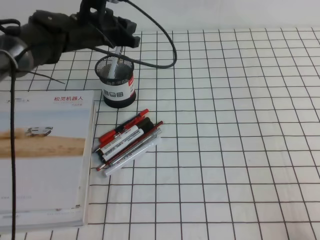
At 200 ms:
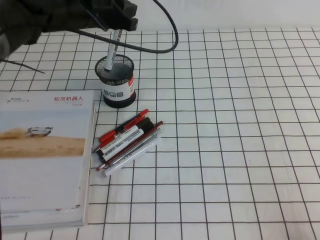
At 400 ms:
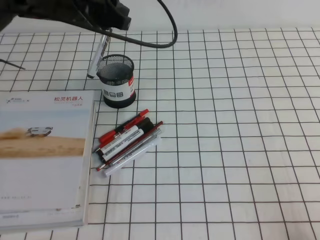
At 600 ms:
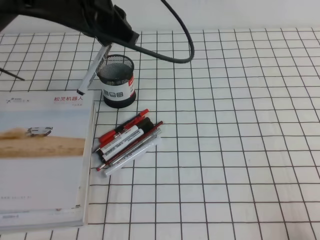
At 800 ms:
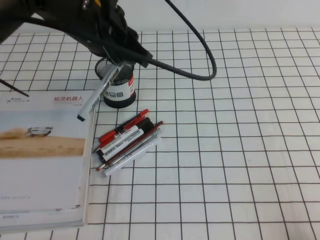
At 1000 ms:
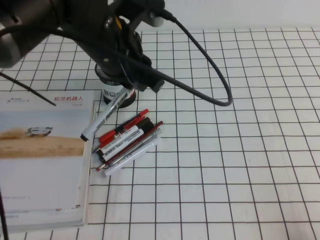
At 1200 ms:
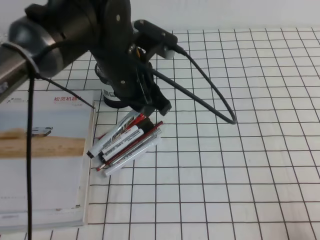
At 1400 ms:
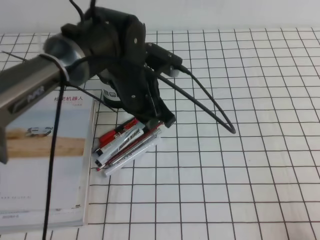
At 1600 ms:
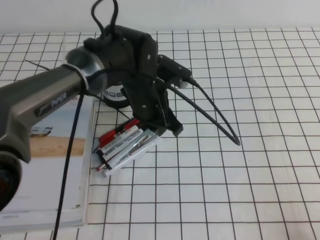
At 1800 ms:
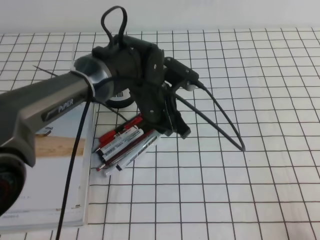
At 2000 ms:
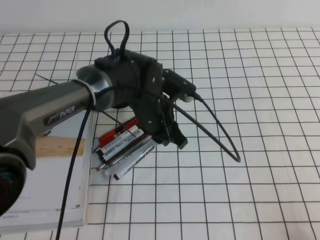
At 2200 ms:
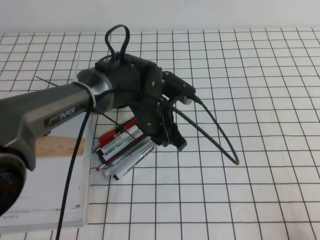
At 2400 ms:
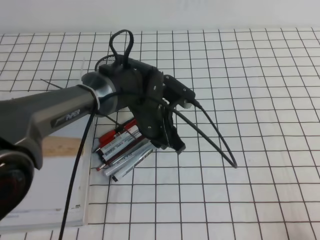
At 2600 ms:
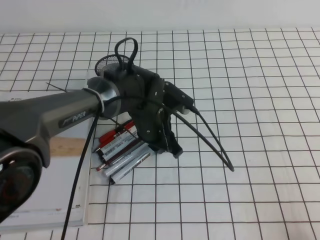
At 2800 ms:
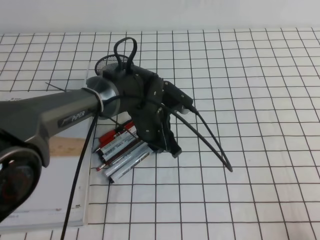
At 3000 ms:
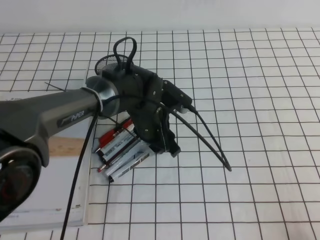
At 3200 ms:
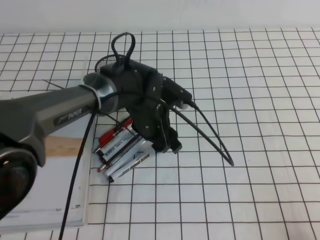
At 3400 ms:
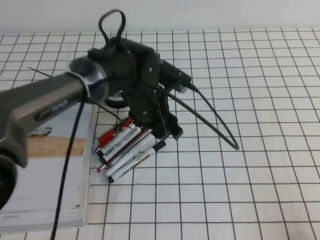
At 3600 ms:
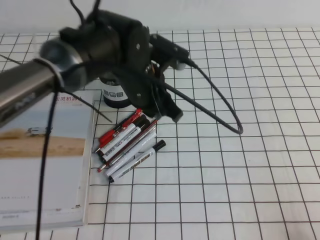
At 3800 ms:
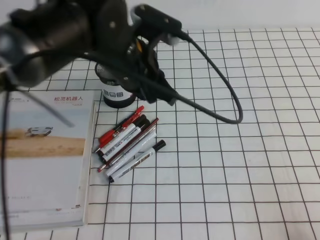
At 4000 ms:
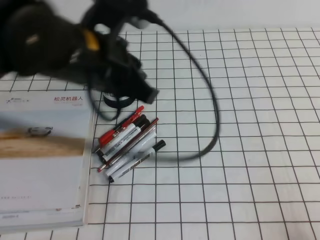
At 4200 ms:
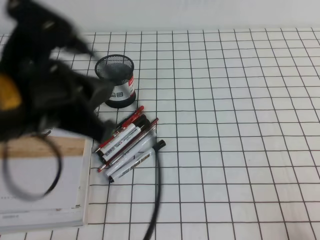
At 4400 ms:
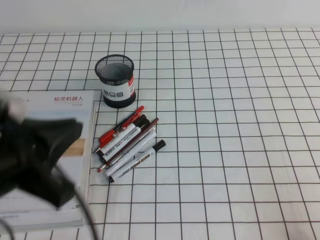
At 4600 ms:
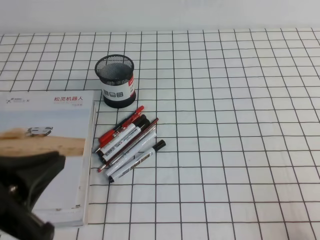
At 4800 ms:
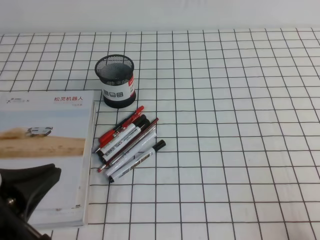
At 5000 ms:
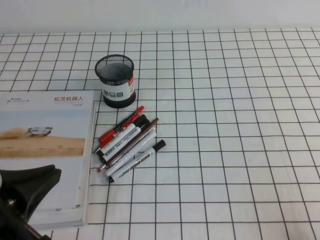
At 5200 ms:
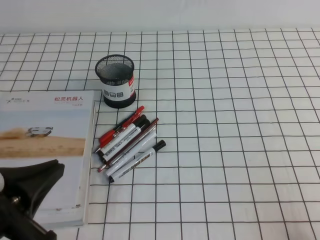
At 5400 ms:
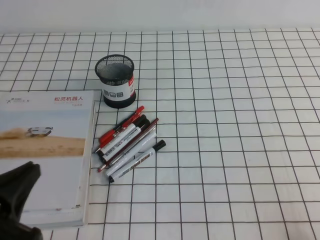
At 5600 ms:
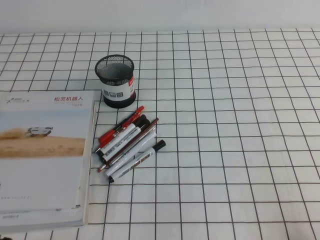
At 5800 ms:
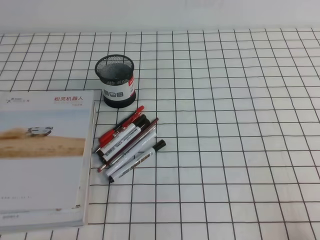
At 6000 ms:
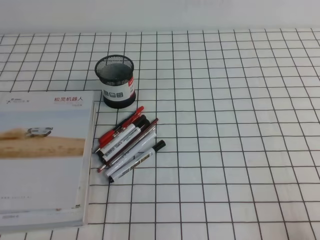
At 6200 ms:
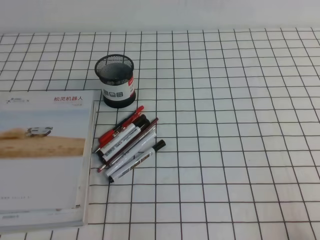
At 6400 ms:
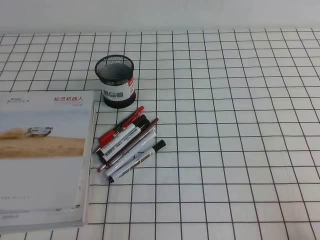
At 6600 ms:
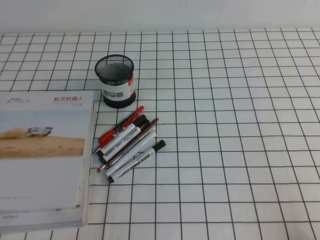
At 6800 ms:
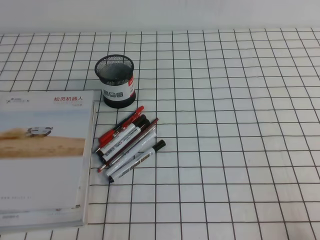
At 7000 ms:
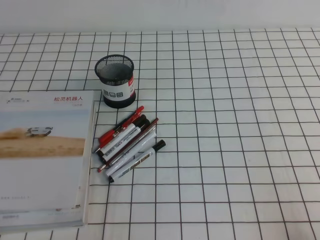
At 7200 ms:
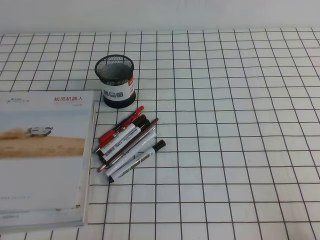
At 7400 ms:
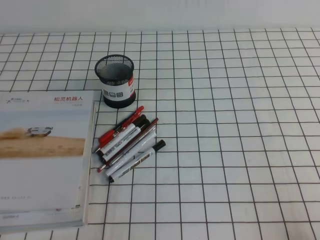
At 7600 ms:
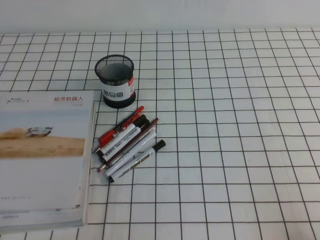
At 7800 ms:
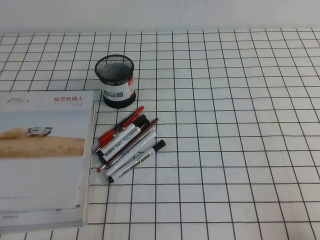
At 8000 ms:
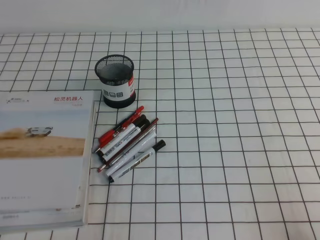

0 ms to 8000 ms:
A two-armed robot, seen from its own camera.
Step, 0 ms to 8000 ms: Pick up the pen from the pen holder.
0 ms to 1600 ms: The left gripper heads backward and to the right, covering some 15 cm.
1600 ms to 3200 ms: The left gripper goes roughly 5 cm downward, and opens its fingers.
3200 ms to 4800 ms: The left gripper goes some 35 cm backward, to the left and upward, and closes.
4800 ms to 6400 ms: The left gripper shifts roughly 15 cm downward and to the left.

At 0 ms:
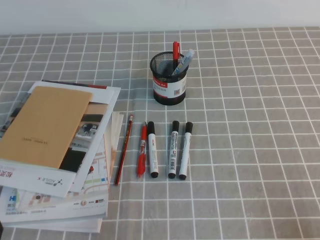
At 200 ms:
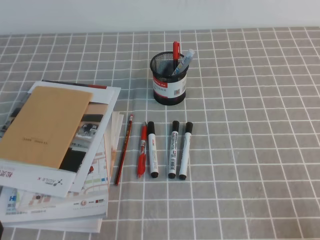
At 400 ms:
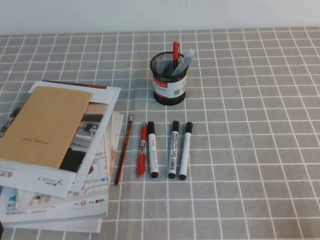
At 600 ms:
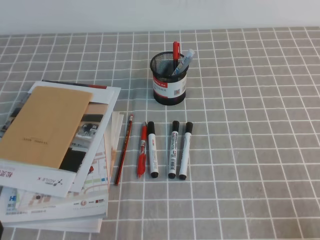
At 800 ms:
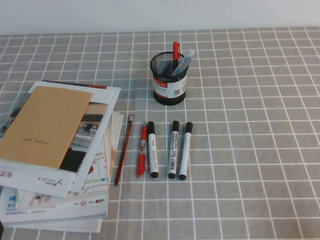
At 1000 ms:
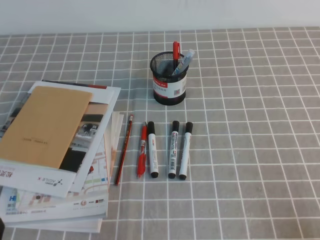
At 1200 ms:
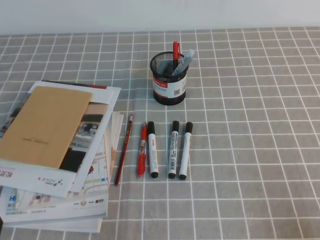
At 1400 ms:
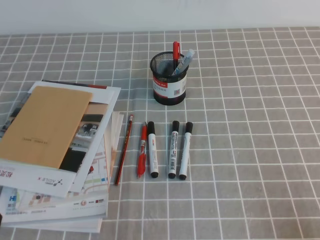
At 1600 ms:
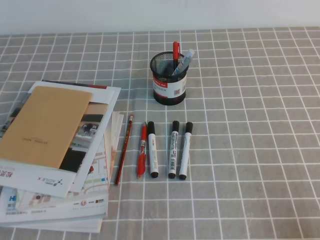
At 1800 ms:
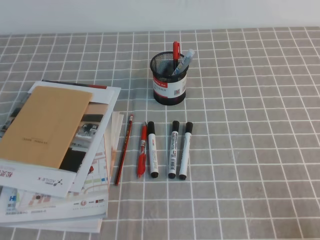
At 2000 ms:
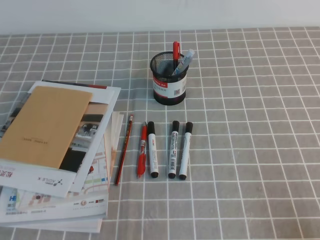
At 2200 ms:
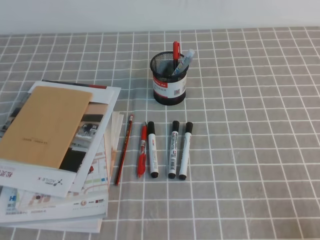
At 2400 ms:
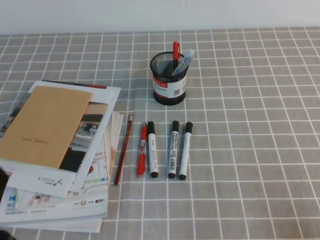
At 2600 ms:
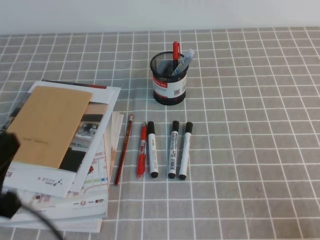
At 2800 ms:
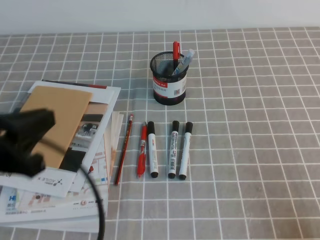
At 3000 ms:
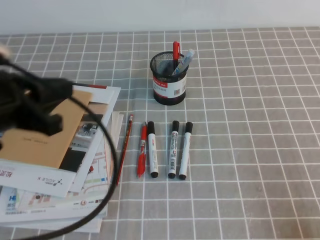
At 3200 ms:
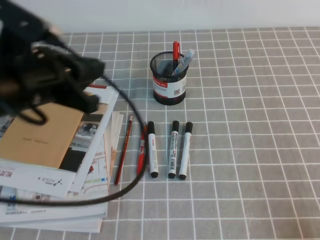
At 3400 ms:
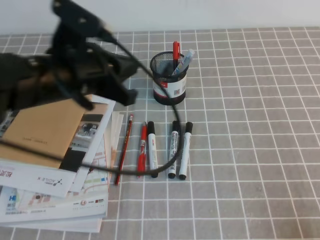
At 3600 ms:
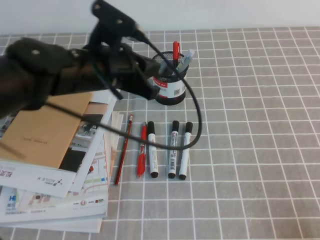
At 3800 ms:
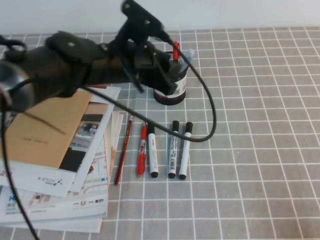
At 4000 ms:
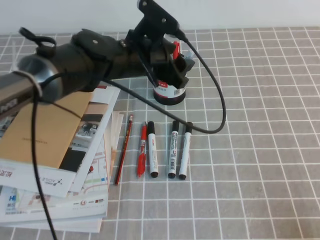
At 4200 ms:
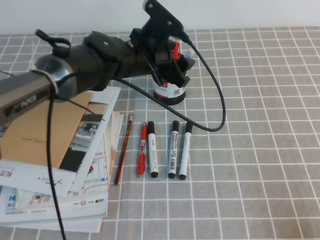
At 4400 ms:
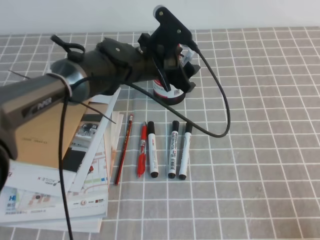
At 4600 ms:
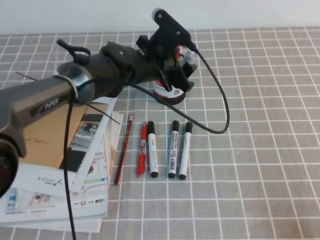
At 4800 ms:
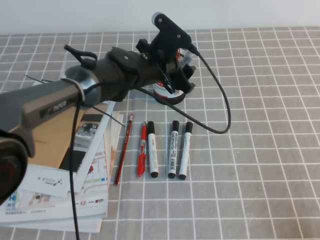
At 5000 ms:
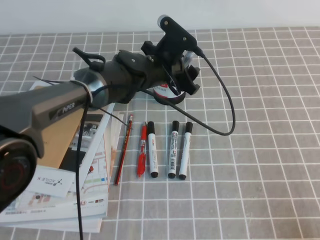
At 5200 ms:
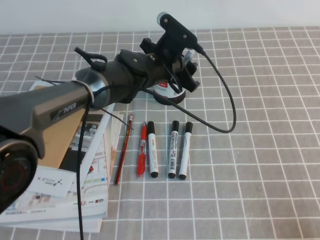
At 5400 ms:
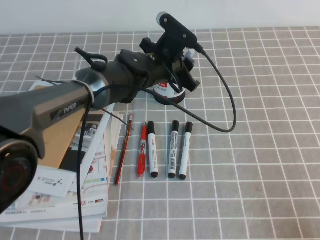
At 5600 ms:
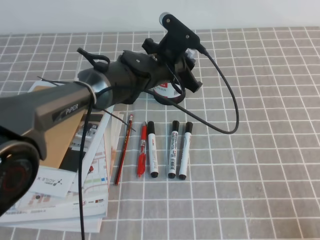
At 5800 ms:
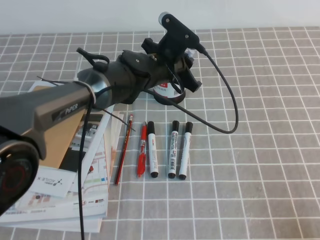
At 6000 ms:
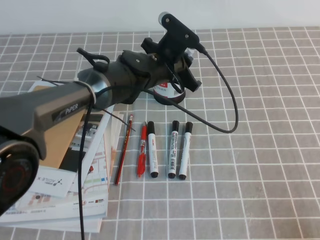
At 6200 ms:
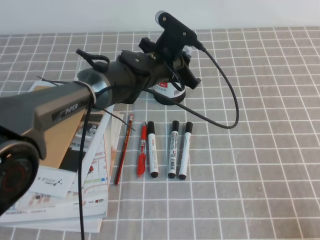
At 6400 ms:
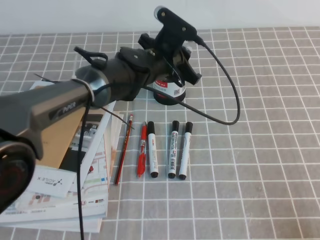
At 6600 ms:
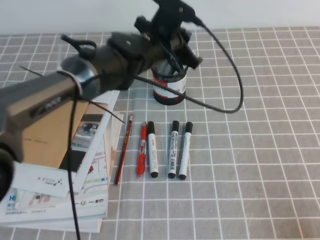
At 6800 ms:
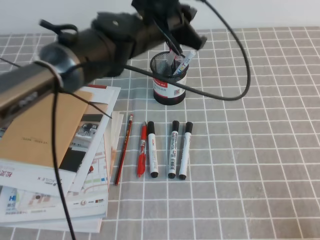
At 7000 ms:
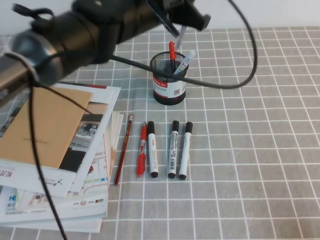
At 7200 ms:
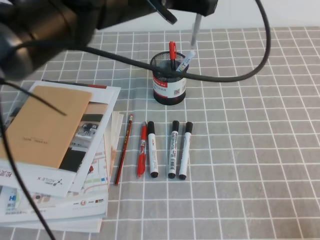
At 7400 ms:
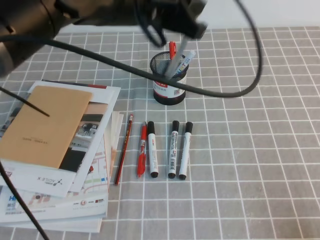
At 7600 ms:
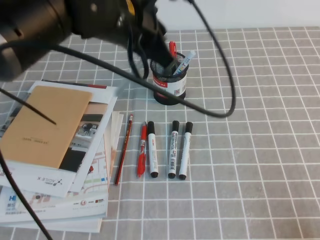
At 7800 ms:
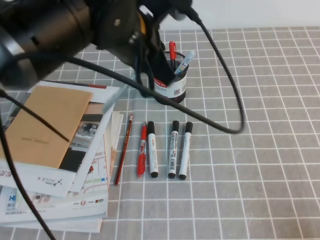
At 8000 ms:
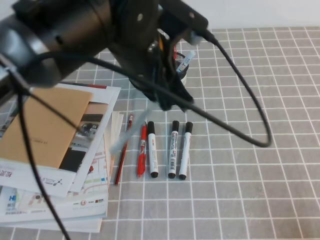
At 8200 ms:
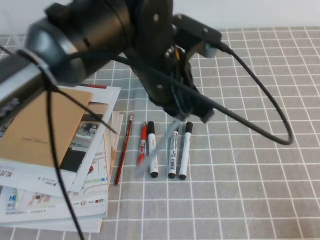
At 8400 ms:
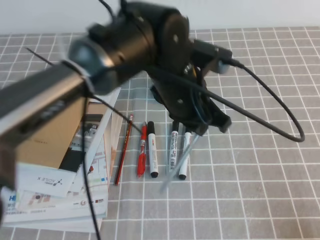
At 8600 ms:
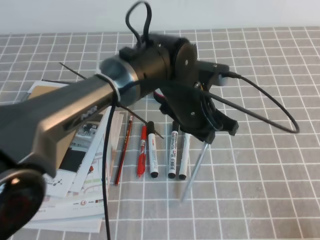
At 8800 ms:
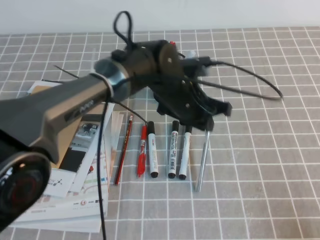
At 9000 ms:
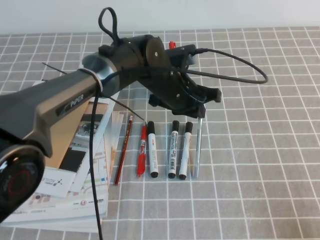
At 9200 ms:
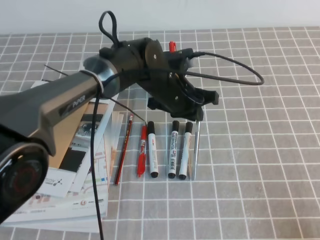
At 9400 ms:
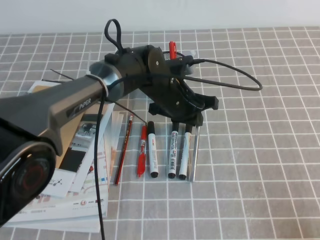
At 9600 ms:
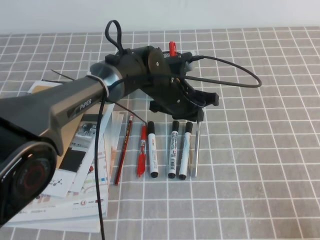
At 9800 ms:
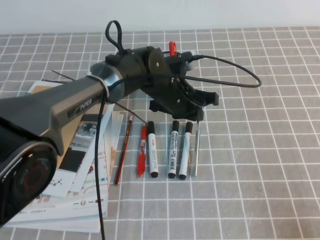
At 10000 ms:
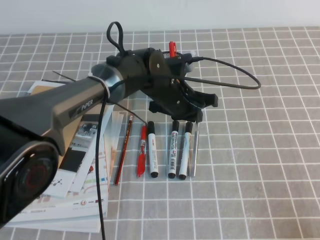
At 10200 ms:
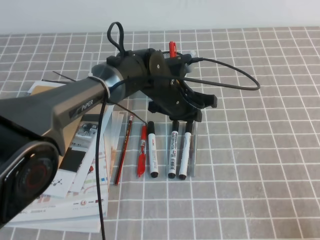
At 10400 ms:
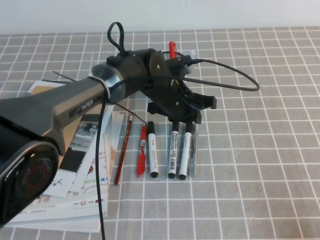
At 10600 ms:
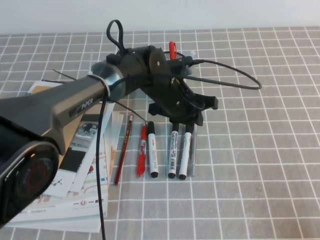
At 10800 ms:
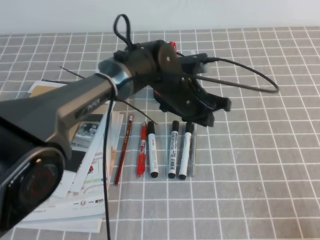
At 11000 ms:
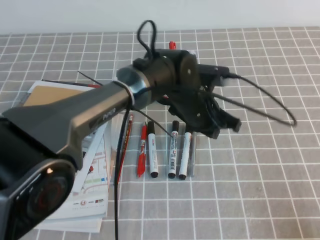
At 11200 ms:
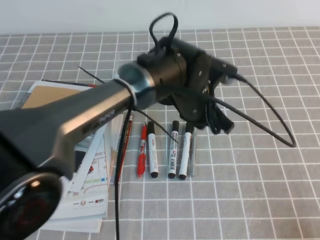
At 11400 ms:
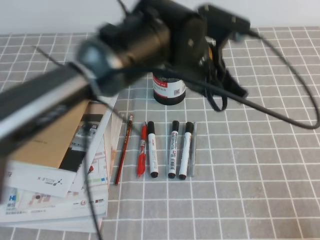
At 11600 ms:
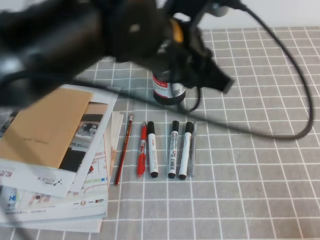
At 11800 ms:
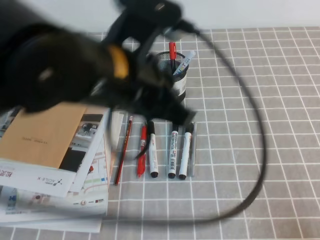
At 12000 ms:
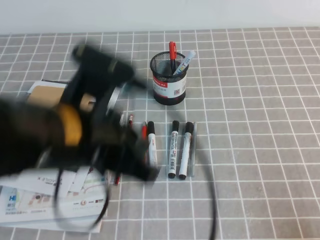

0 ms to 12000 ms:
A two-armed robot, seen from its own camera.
1600 ms to 3000 ms: The left gripper shifts about 20 cm upward and forward.
3000 ms to 4400 ms: The left gripper goes some 30 cm forward, to the right and downward, and opens its fingers.
4400 ms to 6000 ms: The left gripper closes up.
6000 ms to 7600 ms: The left gripper heads upward and backward, covering about 20 cm.
7600 ms to 9000 ms: The left gripper shifts about 15 cm downward and to the right.
9000 ms to 10400 ms: The grippers make only small movements.
10400 ms to 12000 ms: The left gripper moves backward, upward and to the left, approximately 30 cm.

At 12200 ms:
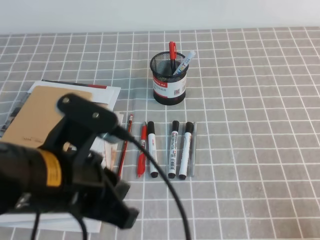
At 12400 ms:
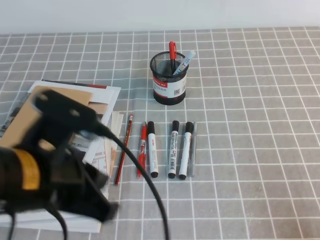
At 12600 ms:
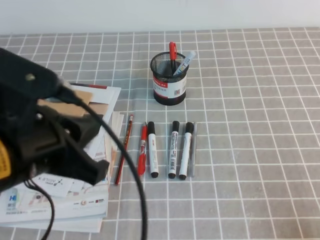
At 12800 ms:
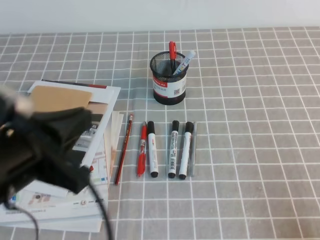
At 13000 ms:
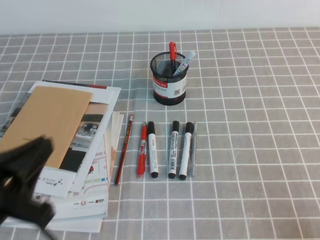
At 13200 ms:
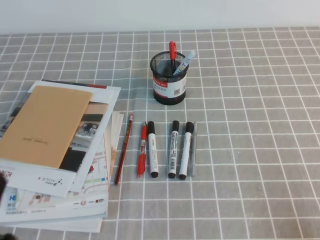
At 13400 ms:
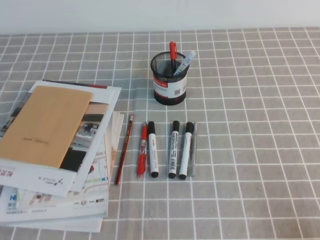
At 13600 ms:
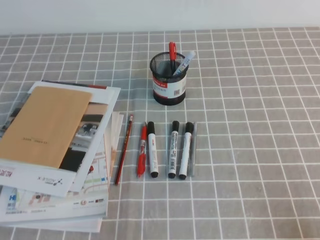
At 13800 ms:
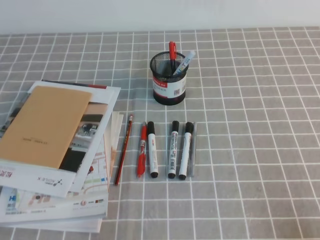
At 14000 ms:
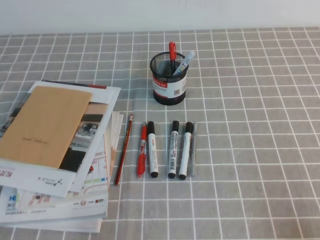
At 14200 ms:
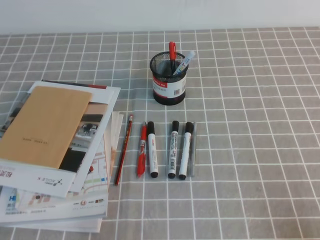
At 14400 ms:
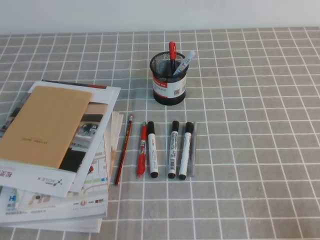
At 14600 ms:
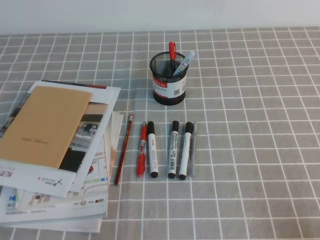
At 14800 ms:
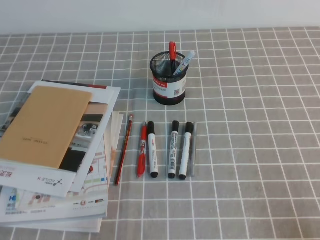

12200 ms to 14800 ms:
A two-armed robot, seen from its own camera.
Step, 12200 ms to 14800 ms: Pick up the pen from the pen holder.
12200 ms to 13400 ms: The left gripper goes about 20 cm to the left, downward and backward.
13400 ms to 14800 ms: The grippers make only small movements.
